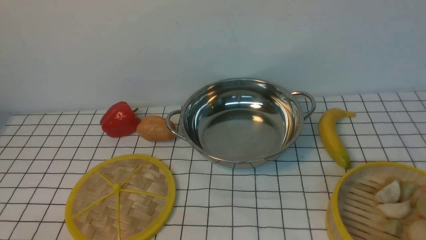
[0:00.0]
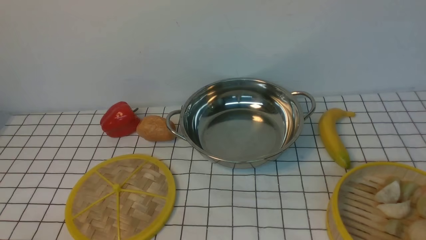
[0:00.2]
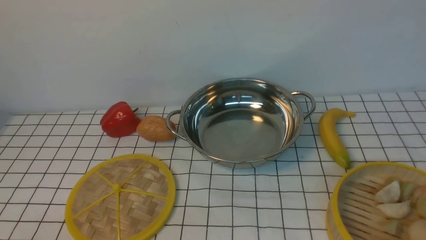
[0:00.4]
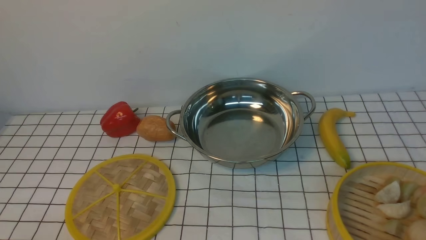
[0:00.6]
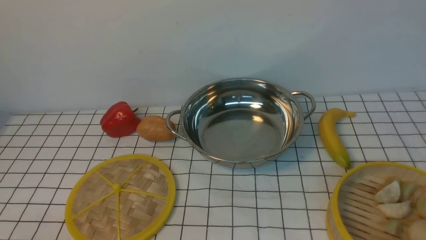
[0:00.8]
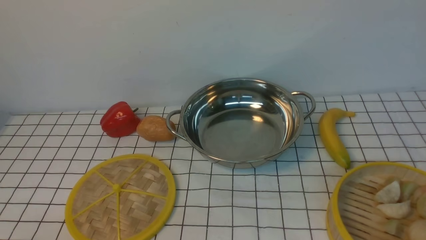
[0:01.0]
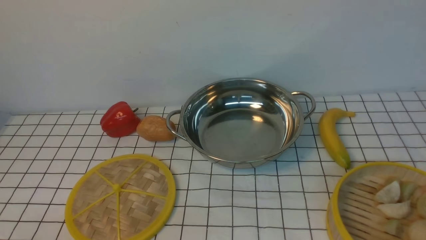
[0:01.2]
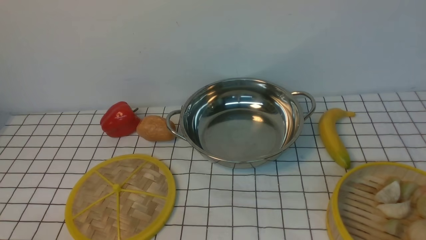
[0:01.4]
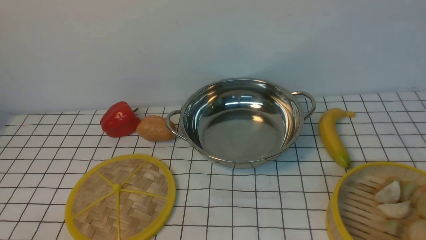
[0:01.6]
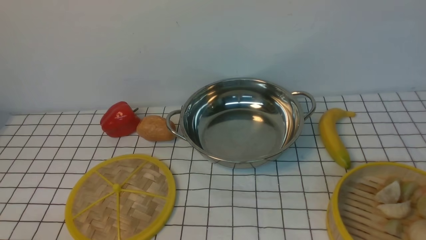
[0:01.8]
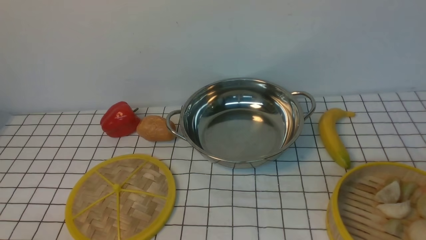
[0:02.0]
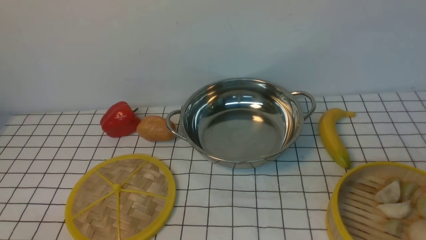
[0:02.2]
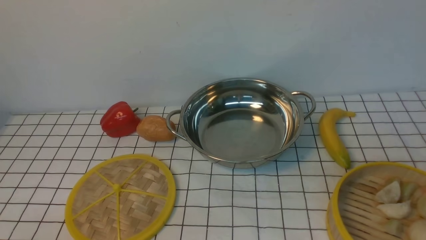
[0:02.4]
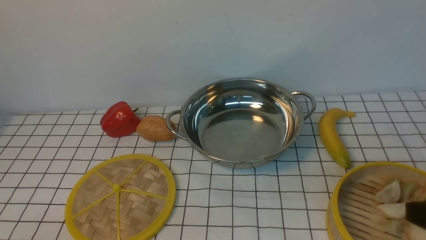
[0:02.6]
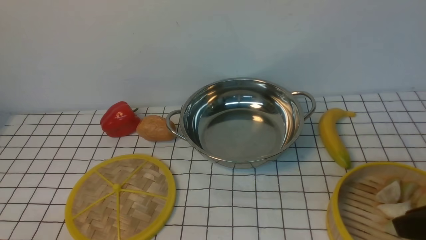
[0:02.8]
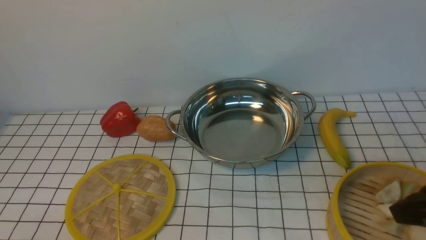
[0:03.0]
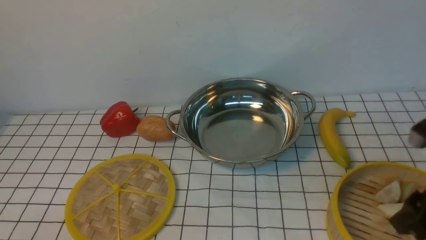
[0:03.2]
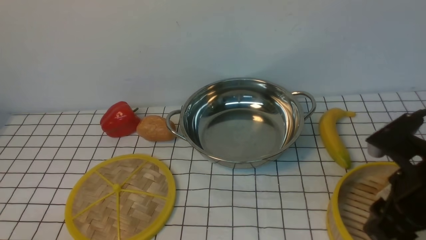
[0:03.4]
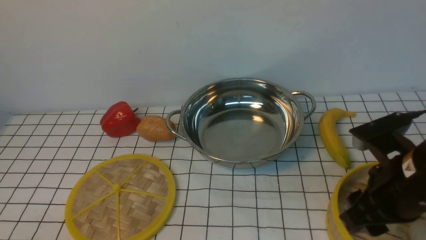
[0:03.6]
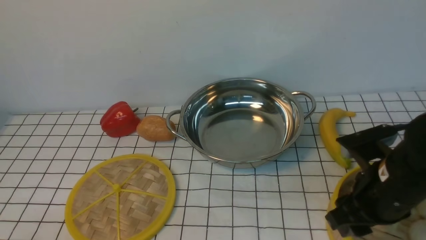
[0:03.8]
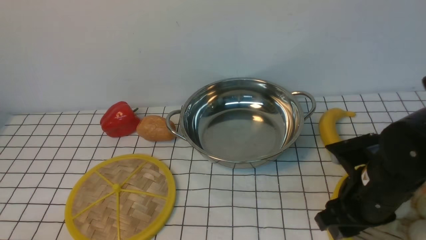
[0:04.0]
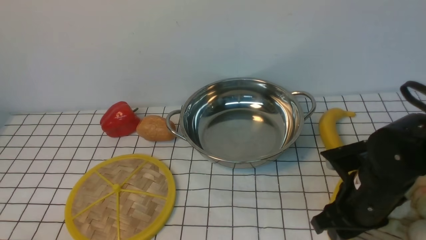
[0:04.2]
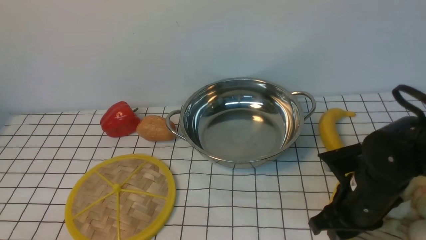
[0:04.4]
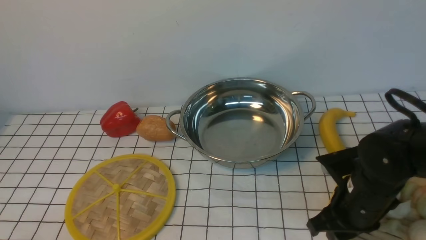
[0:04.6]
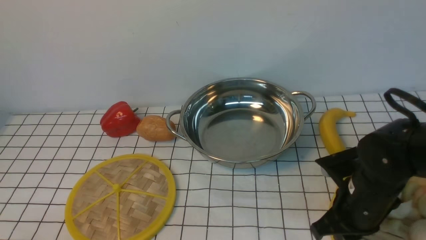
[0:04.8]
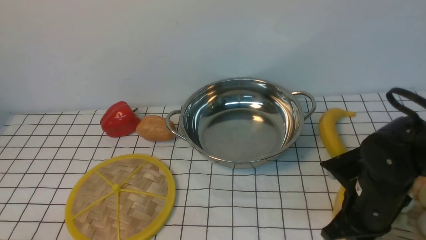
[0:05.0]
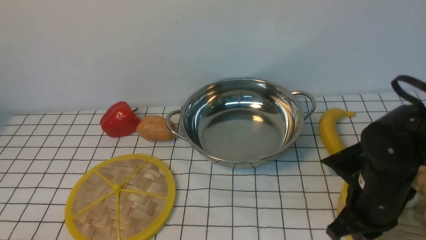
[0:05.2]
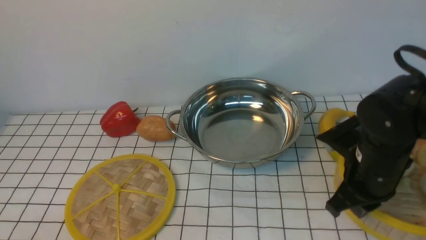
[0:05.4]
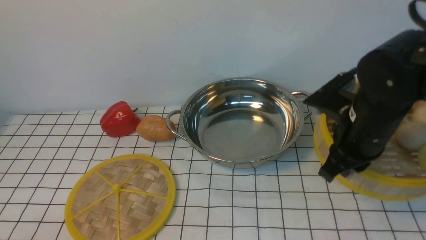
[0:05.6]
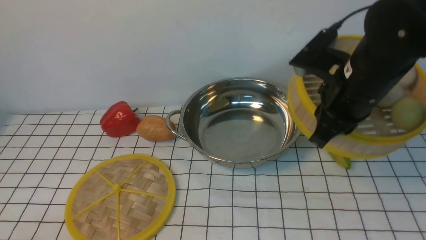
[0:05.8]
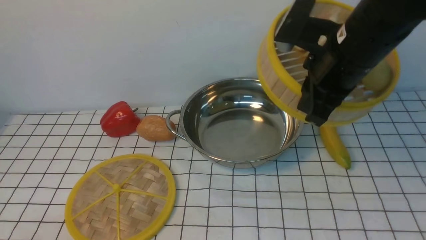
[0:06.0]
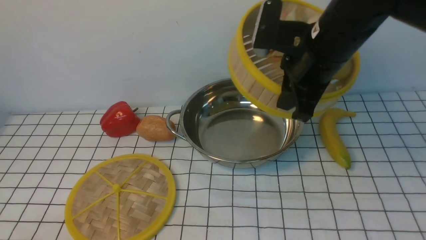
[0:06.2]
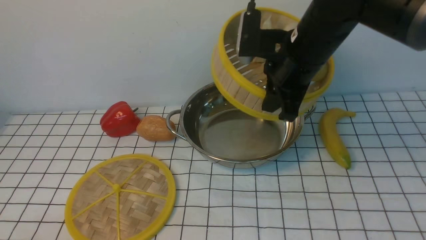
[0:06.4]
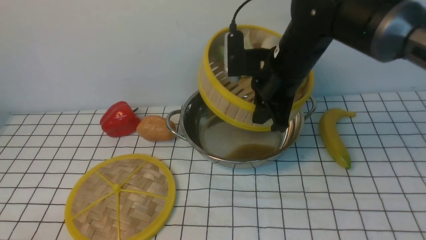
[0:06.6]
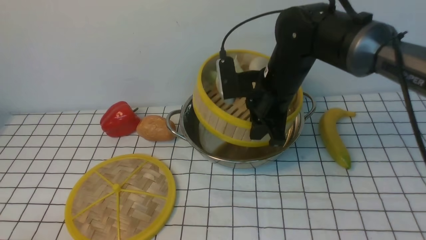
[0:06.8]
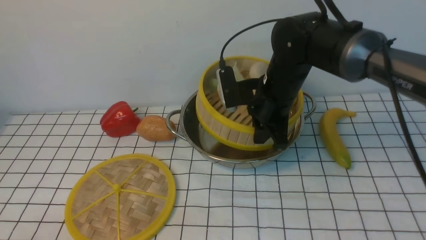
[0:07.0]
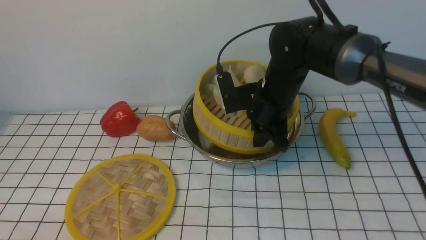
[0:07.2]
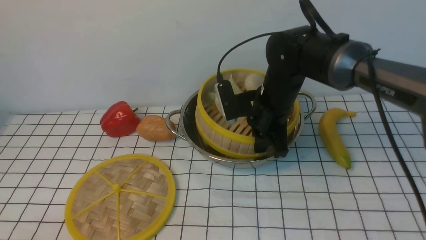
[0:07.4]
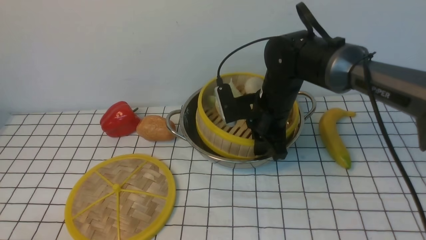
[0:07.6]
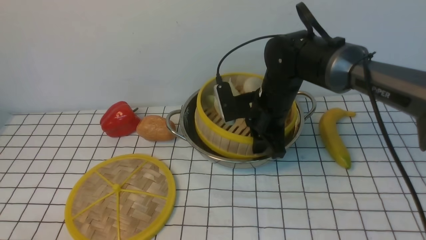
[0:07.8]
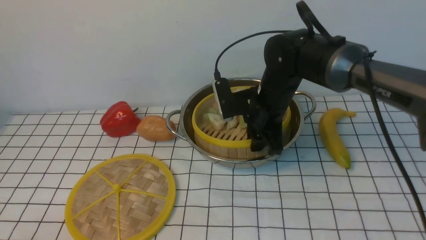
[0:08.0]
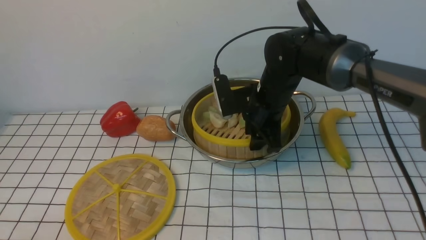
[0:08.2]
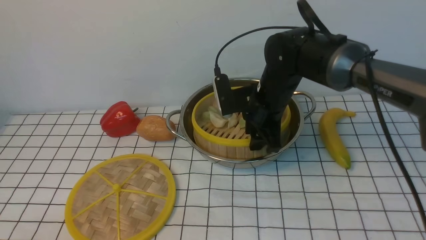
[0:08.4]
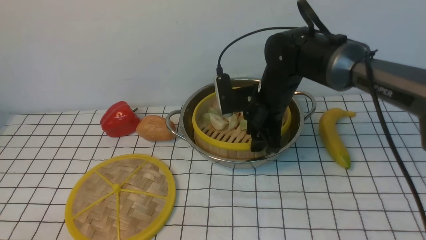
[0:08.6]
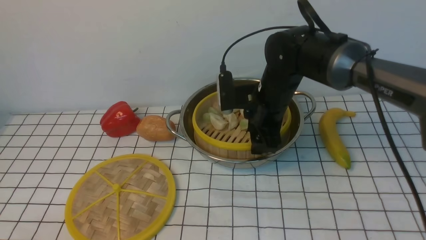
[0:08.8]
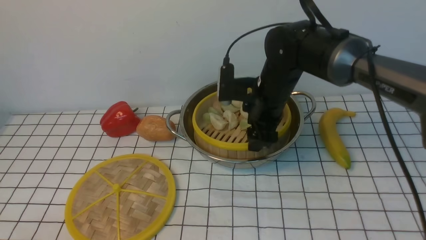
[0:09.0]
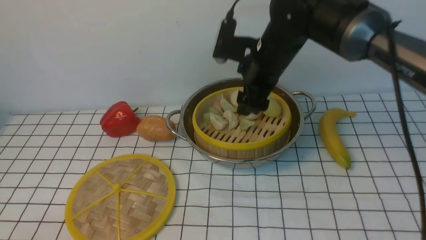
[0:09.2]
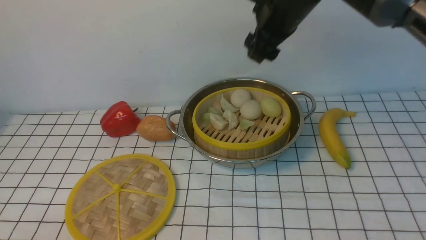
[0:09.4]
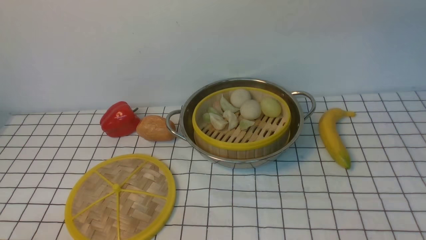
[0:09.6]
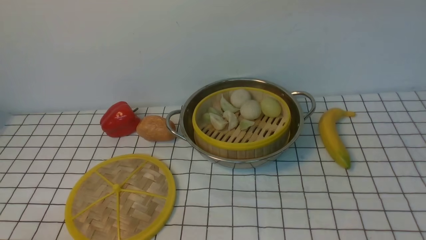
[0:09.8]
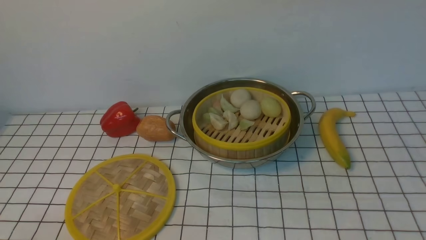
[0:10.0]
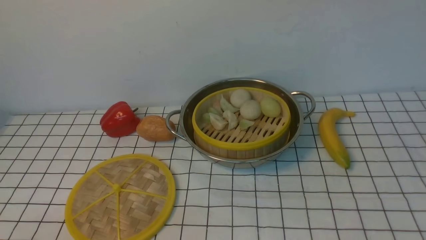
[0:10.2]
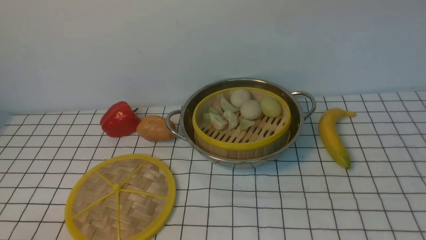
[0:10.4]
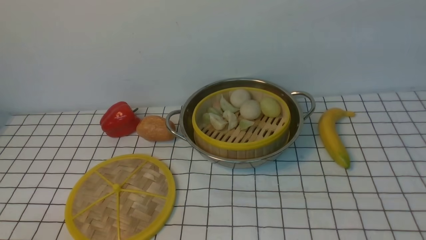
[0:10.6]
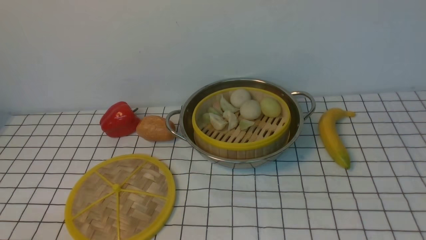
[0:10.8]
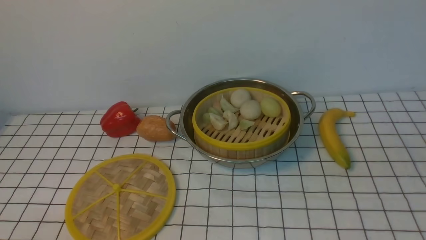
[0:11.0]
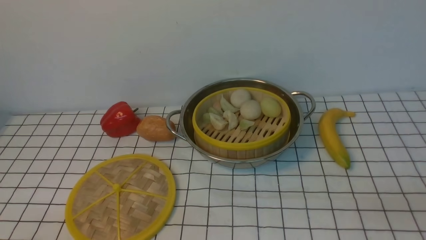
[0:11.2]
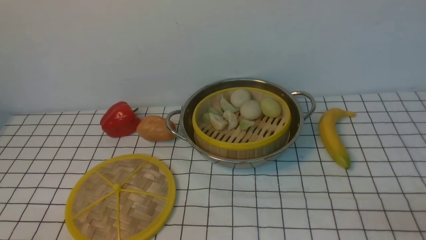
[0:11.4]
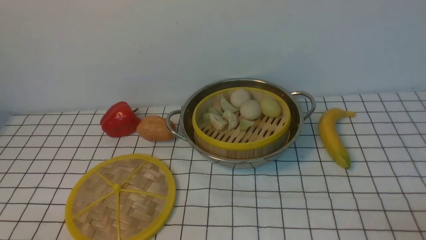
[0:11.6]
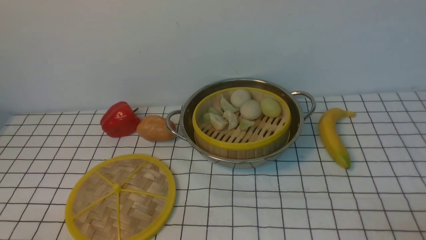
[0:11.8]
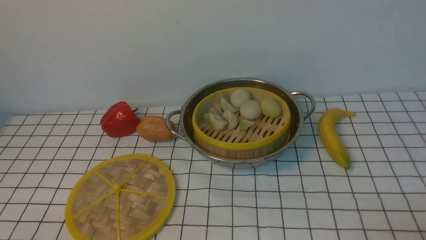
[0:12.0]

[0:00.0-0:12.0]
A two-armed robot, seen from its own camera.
Task of the whole recording: place the steamer in the pot on the white tablecloth, and put the lid on the steamer.
Step, 0.0 to 5.4 s: use the right arm to lift the steamer closest to it.
Step, 5.6 to 9.0 s: use the right arm to put the steamer into the iron steamer pot in the middle.
1.6 to 3.0 s: The right gripper heads forward and upward, covering approximately 15 cm.
3.0 to 4.4 s: The right gripper shifts some 15 cm downward, to the left and forward.
4.4 to 6.0 s: The right gripper is displaced upward and forward by approximately 20 cm, and closes its fingers.
6.0 to 7.6 s: The right gripper heads downward, forward and to the left, covering about 15 cm.
7.6 to 9.0 s: The right gripper opens up.
9.0 to 10.4 s: The right gripper shifts approximately 35 cm upward, to the right and backward, and closes.

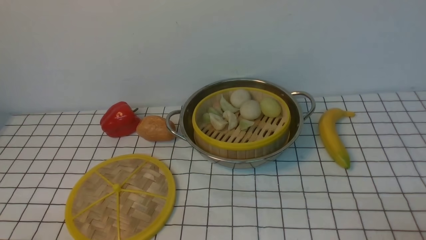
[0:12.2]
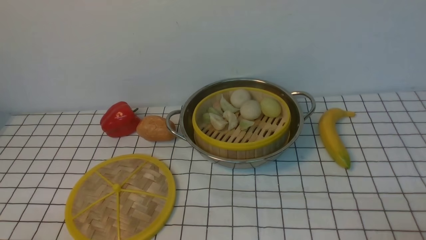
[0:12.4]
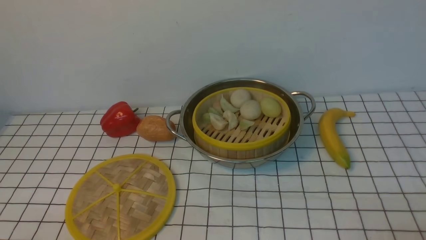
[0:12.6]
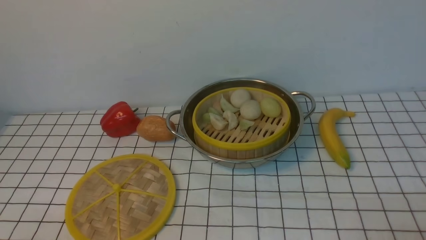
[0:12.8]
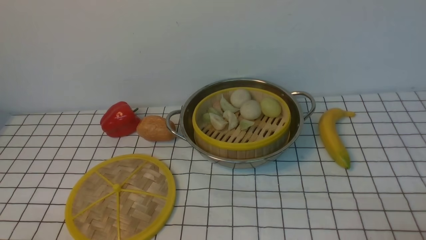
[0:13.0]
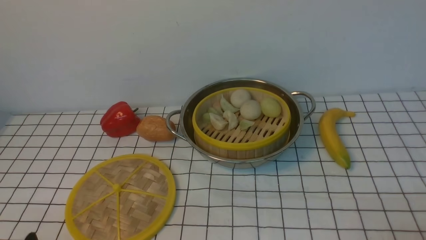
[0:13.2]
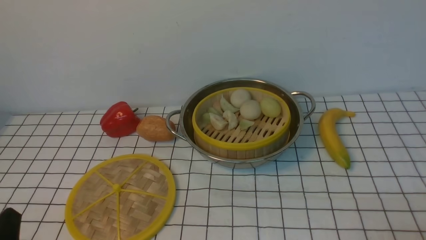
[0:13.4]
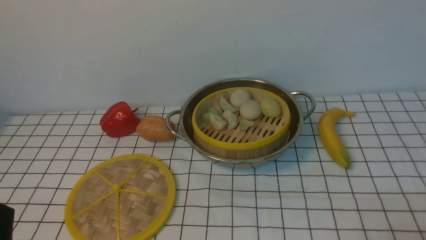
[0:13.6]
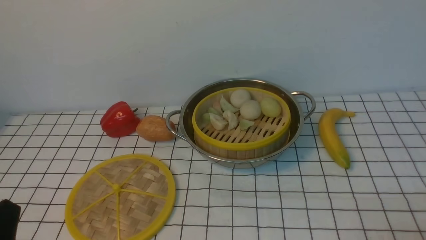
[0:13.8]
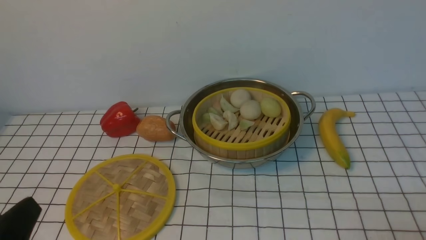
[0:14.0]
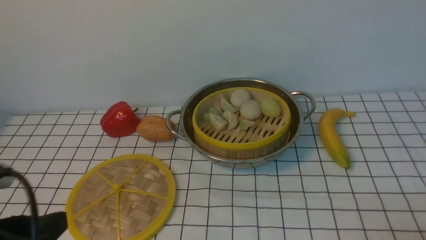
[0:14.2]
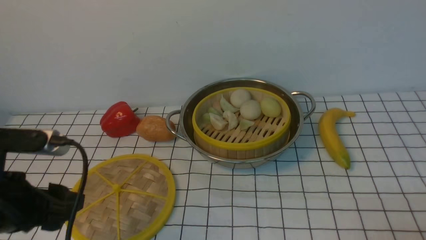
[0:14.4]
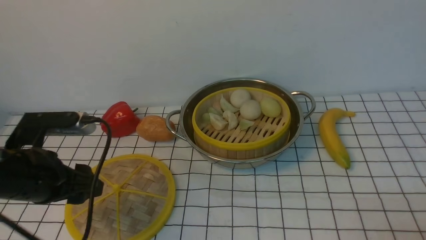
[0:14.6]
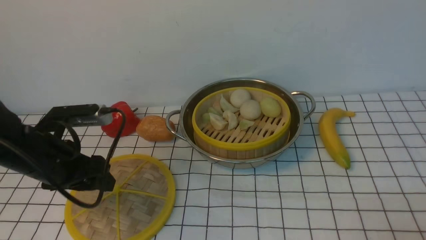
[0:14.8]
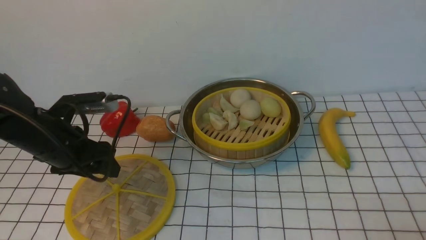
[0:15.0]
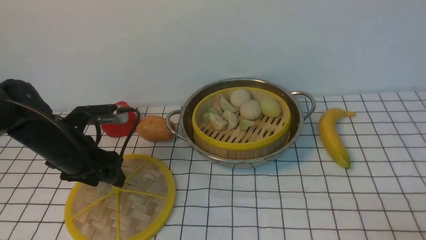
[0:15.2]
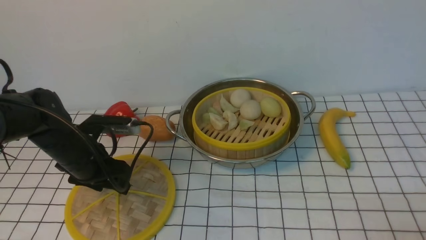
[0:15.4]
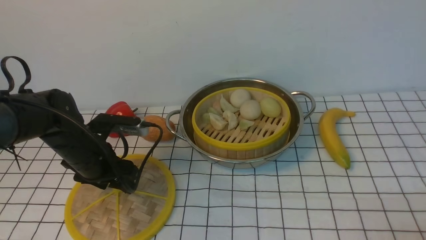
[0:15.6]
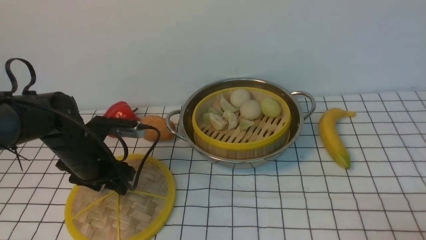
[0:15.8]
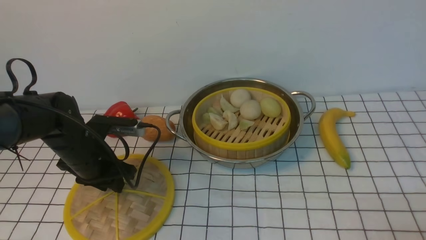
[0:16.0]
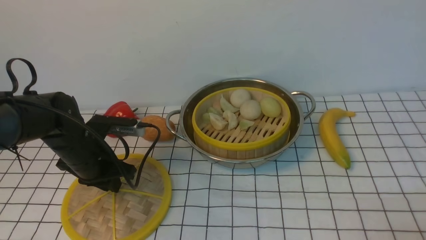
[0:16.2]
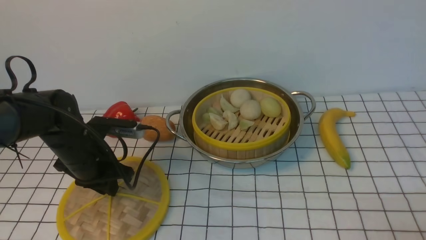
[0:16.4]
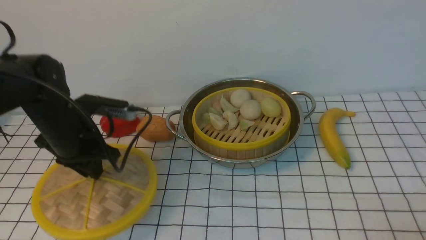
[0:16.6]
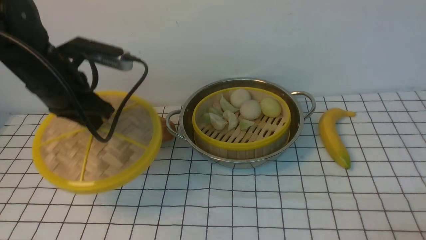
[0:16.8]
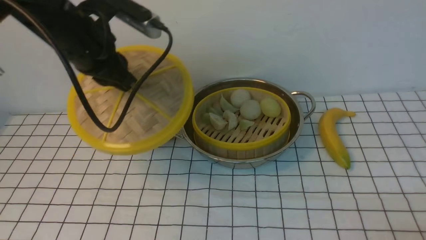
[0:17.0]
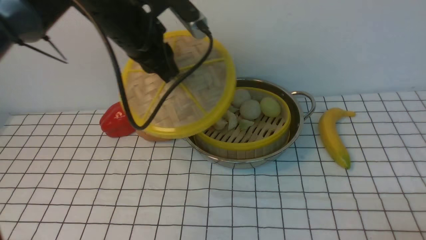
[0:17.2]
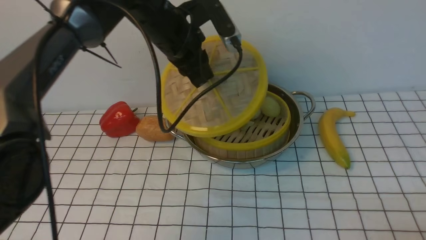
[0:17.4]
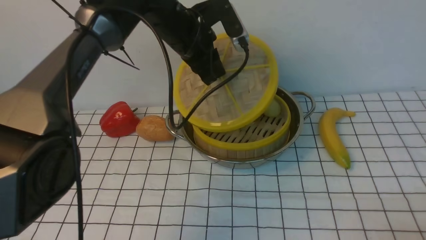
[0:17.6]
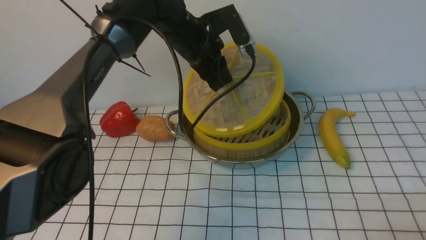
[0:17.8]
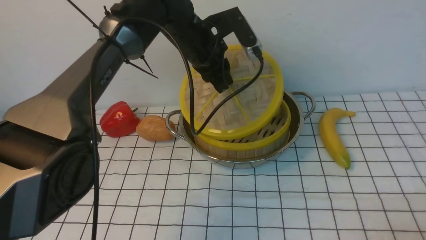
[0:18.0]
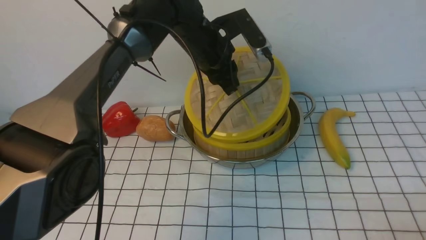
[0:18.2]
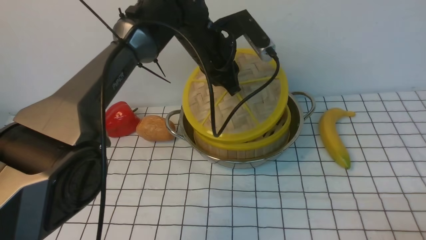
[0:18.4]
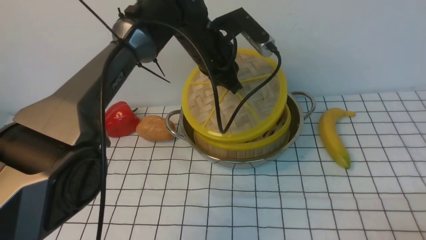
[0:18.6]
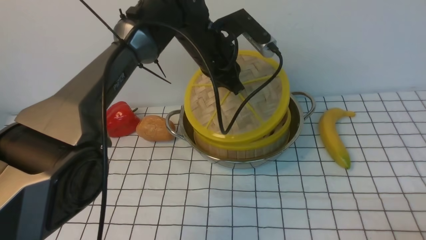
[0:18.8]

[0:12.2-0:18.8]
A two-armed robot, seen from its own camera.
Task of the whole recording: place the steamer in the pot on the white tablecloth, and put the lid on the steamer.
Step, 12.2 to 16.6 s: use the left arm to lift the lid of the steamer.
12.2 to 13.8 s: The left gripper shifts about 5 cm upward.
13.8 to 15.4 s: The left gripper shifts approximately 25 cm forward.
15.4 to 17.2 s: The left gripper travels upward, to the right and forward by about 20 cm, and closes its fingers.
17.2 to 18.8 s: The left gripper heads to the right and downward, covering some 10 cm.
